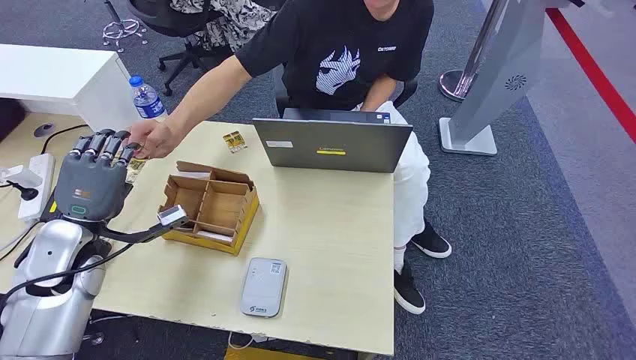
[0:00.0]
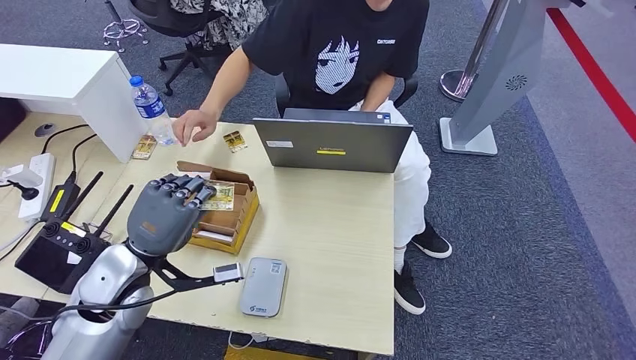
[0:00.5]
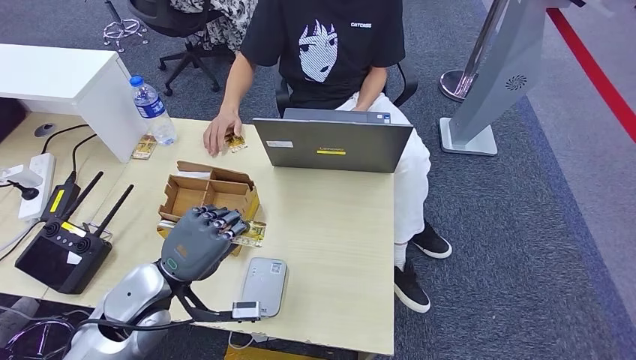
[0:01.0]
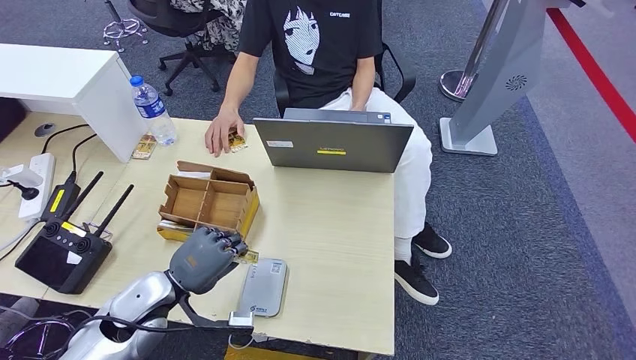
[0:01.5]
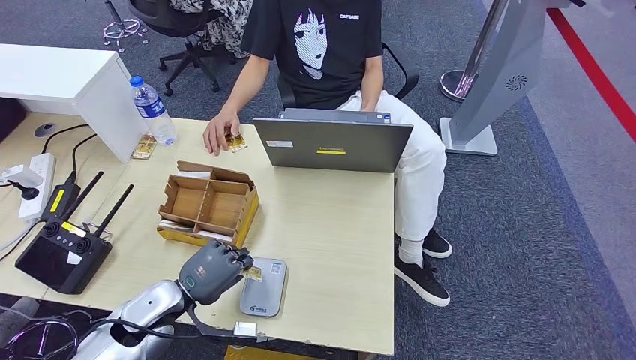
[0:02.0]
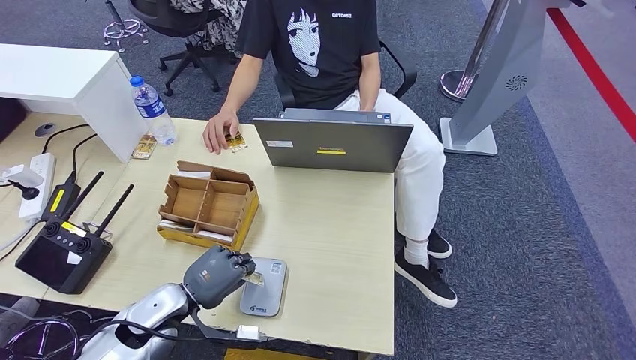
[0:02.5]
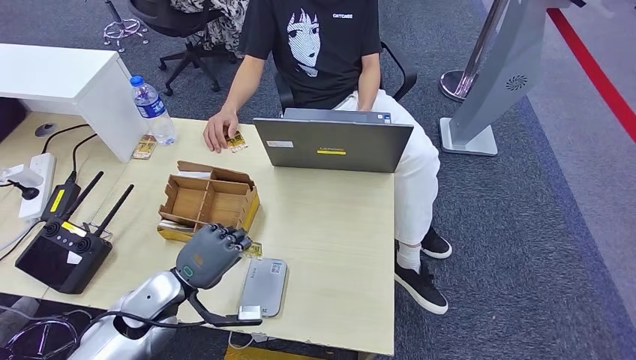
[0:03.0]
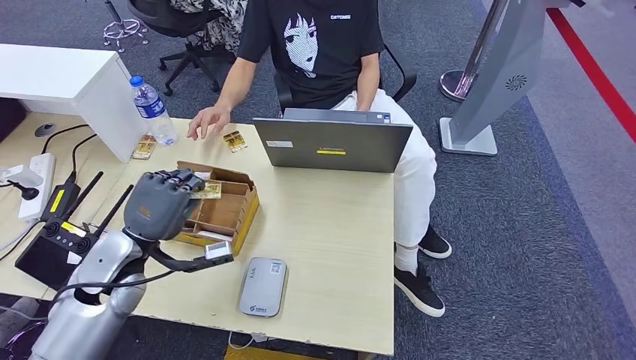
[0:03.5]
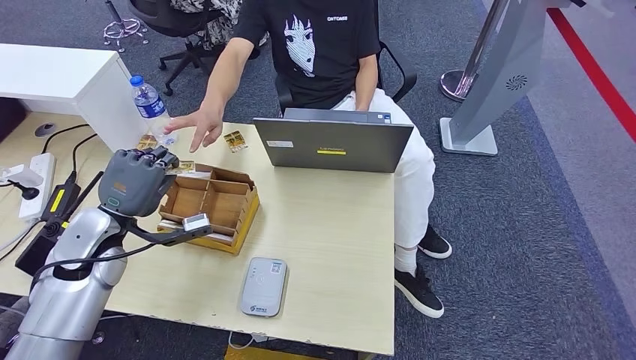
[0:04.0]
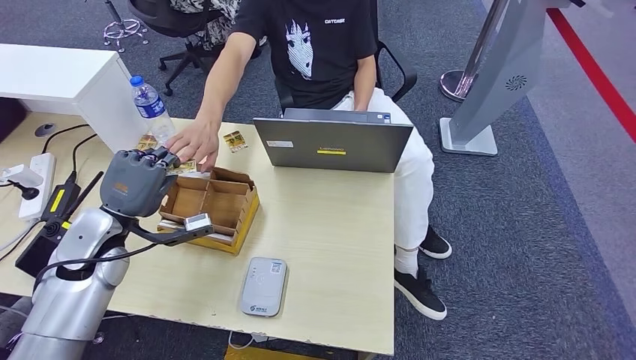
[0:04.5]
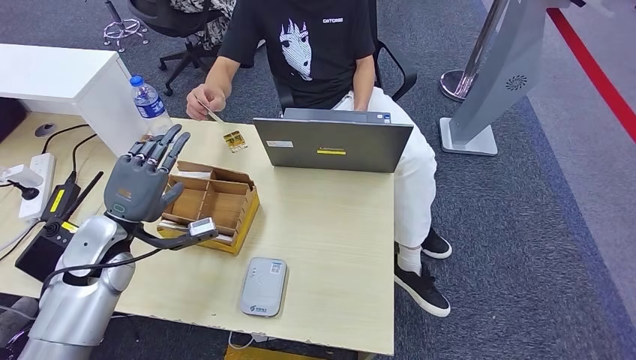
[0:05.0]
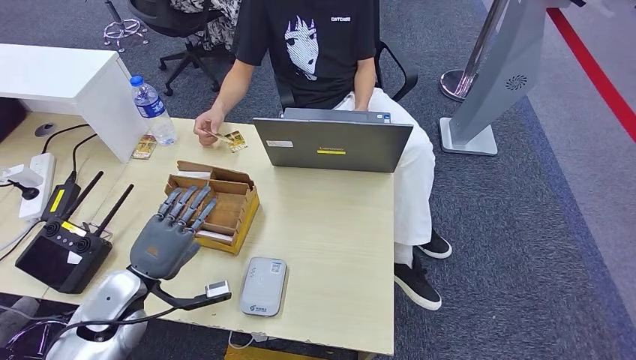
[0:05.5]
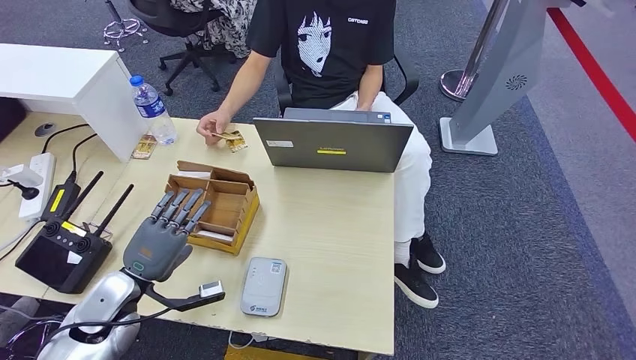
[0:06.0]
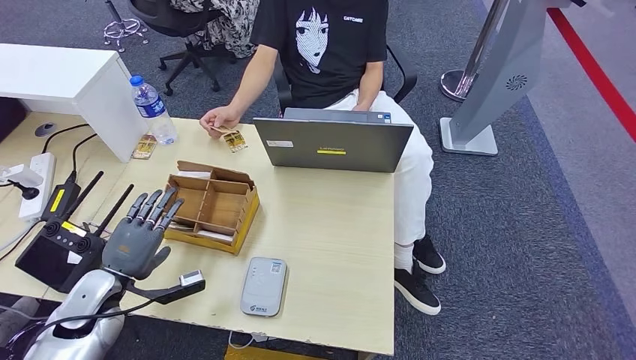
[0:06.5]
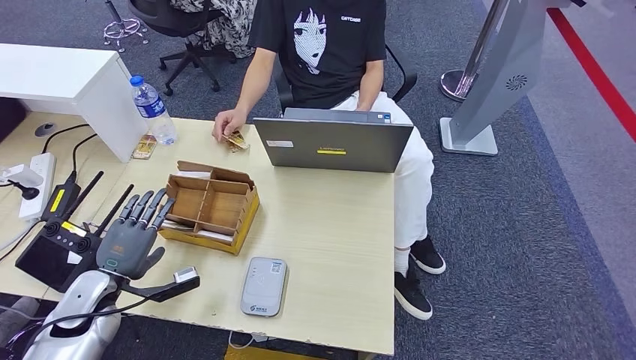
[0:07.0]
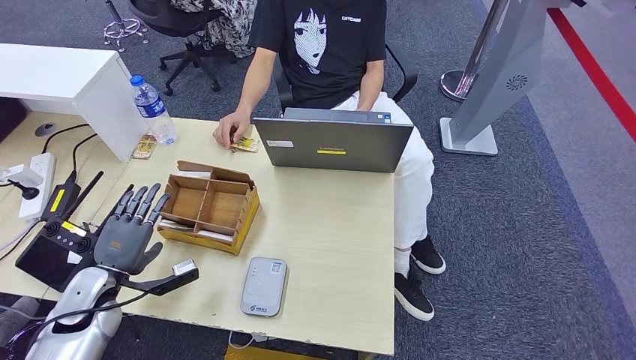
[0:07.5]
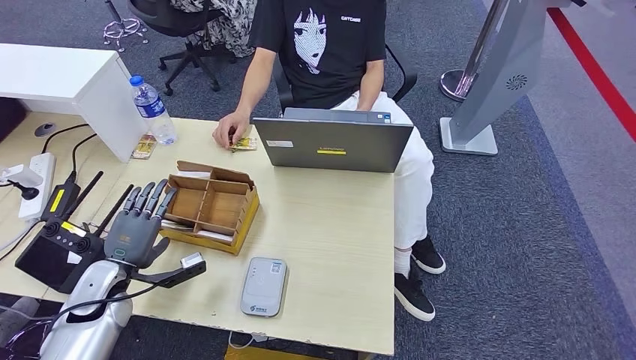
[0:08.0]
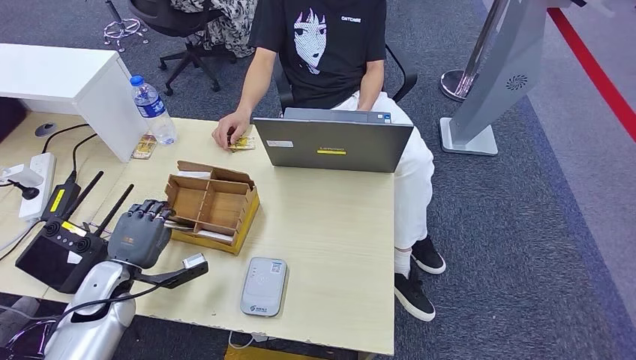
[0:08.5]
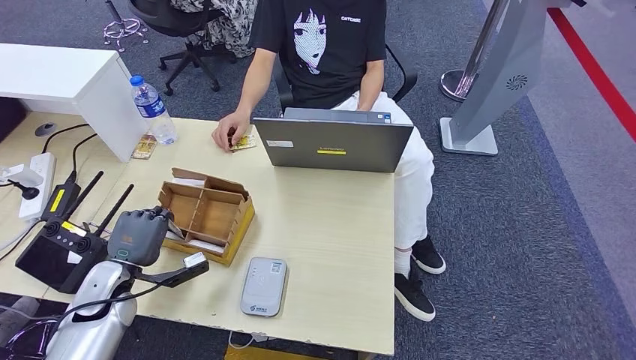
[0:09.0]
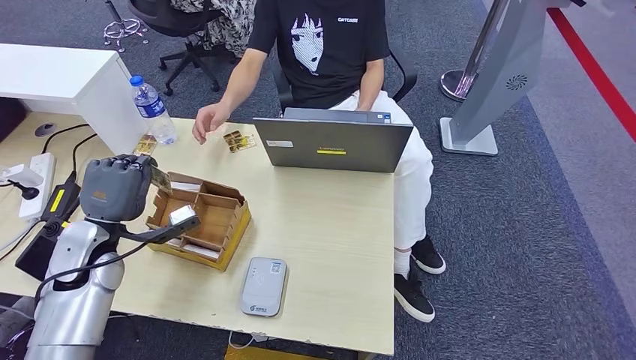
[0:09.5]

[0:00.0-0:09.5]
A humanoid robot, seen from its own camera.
Step, 0:00.0 to 0:01.5: Take the ID card from the person's hand.
Step, 0:02.0 to 0:03.5: Place the ID card on the card reader.
Step, 0:04.0 to 0:05.5: Hand the ID card to the person.
0:02.0 to 0:04.0: The left hand heads upward, forward and to the left, covering some 15 cm.
0:04.0 to 0:05.5: The left hand shifts approximately 10 cm downward and backward.
0:05.5 to 0:07.5: The left hand travels to the left by about 5 cm.
0:07.5 to 0:09.5: The left hand moves upward and forward, roughly 10 cm.

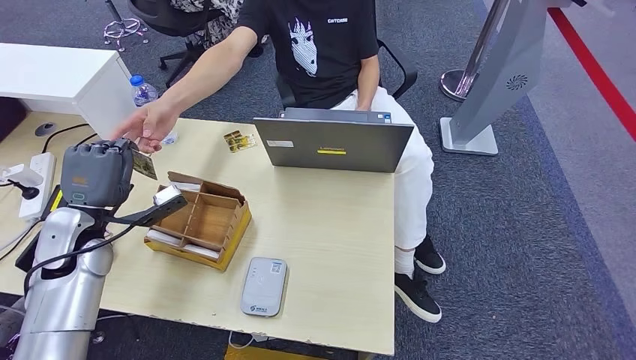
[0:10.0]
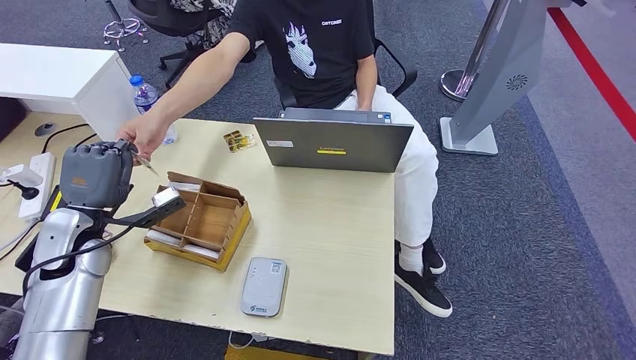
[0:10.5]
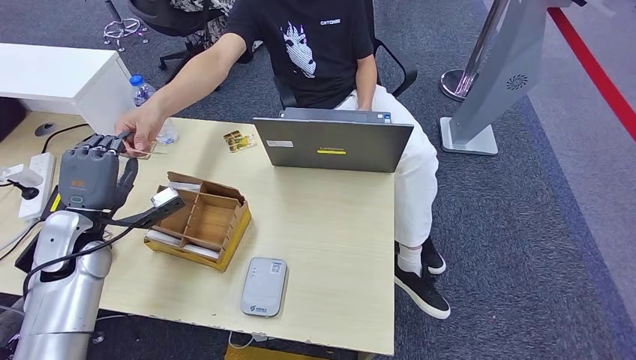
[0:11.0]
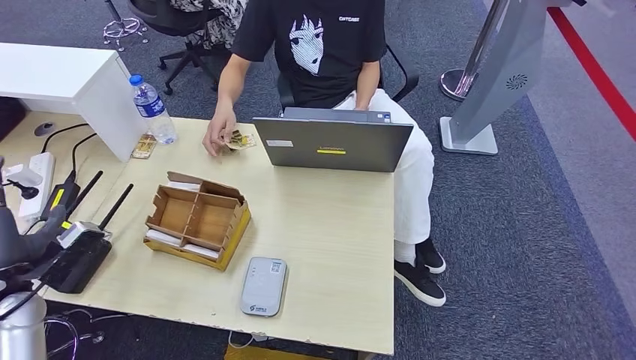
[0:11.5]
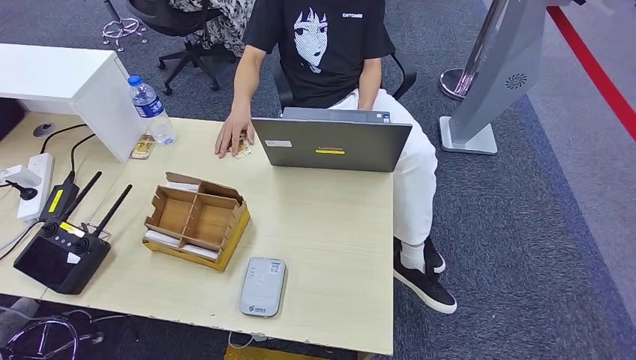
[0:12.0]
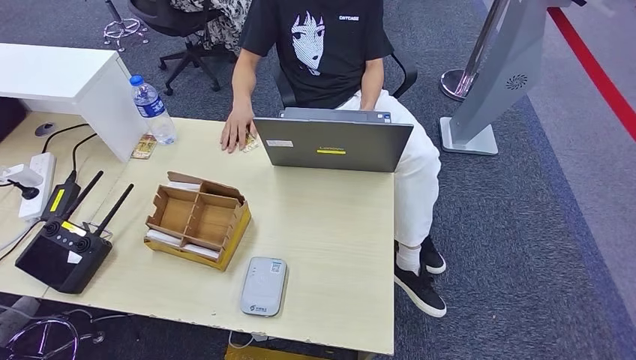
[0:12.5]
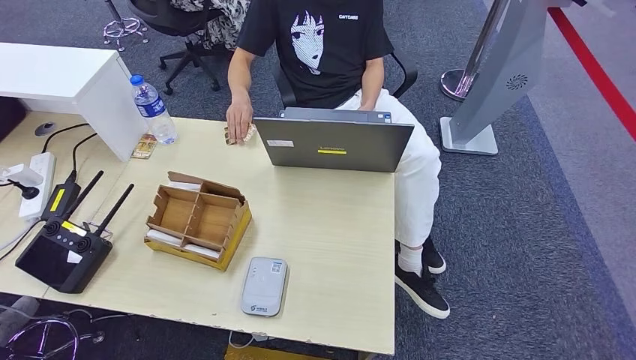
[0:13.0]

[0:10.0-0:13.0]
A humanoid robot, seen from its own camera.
Step, 0:10.5 to 0:13.0: Hand the room key to the person.
0:10.0 to 0:11.5: The left hand moves backward and to the left, approximately 15 cm.
0:11.5 to 0:13.0: The left hand shifts about 30 cm downward and backward.
